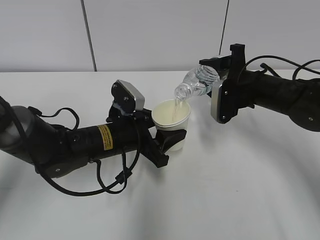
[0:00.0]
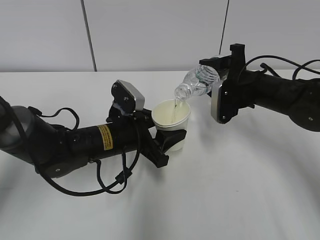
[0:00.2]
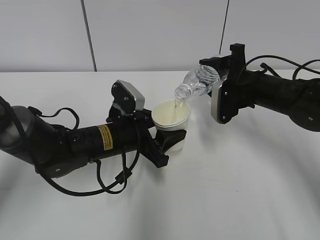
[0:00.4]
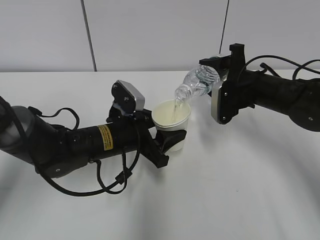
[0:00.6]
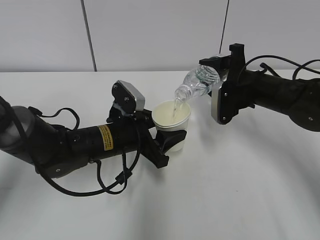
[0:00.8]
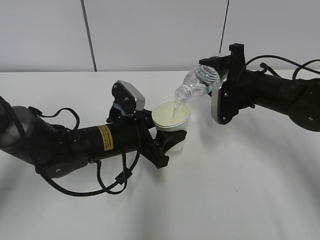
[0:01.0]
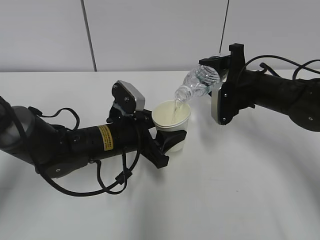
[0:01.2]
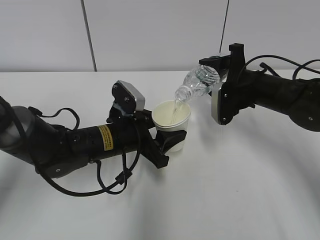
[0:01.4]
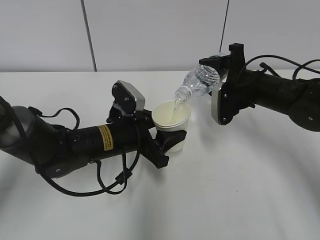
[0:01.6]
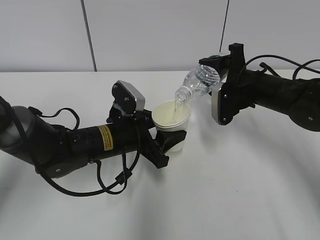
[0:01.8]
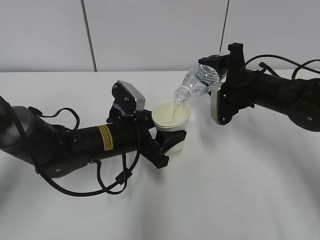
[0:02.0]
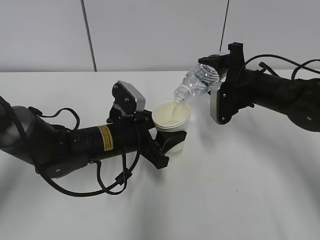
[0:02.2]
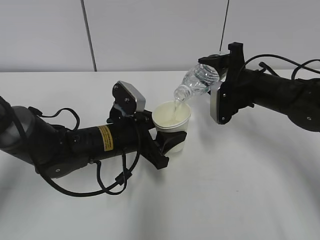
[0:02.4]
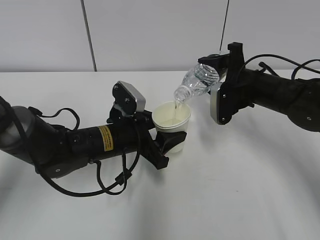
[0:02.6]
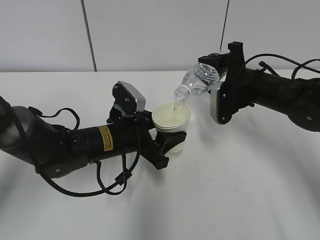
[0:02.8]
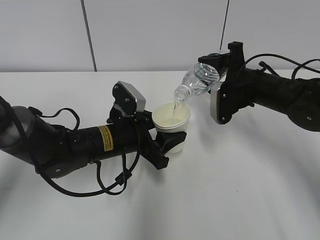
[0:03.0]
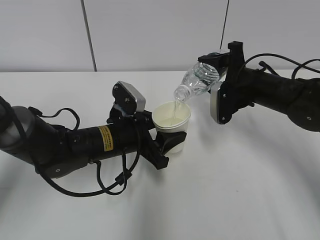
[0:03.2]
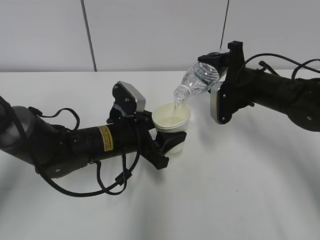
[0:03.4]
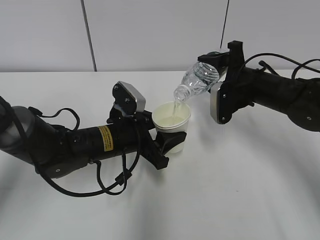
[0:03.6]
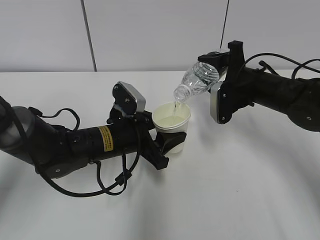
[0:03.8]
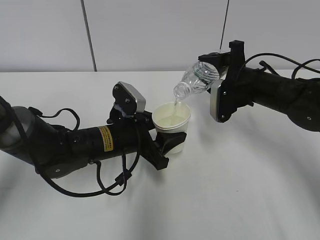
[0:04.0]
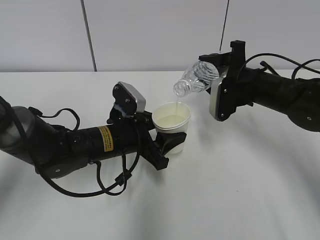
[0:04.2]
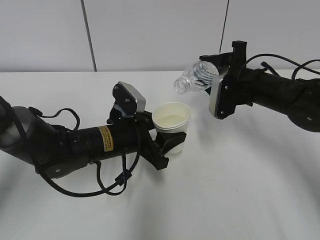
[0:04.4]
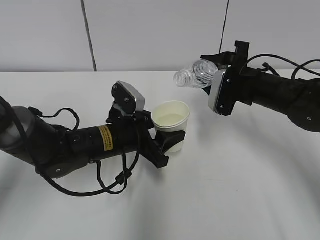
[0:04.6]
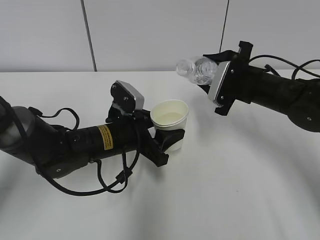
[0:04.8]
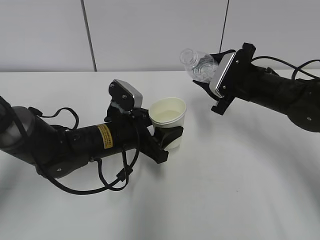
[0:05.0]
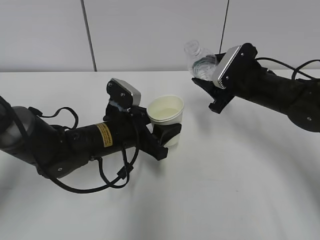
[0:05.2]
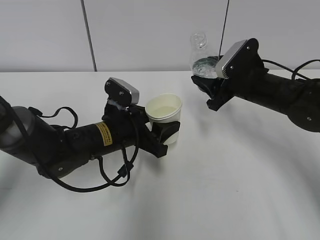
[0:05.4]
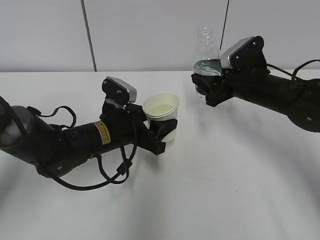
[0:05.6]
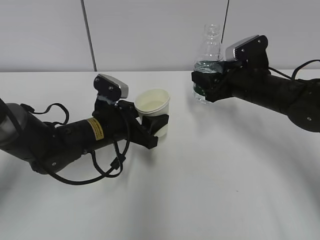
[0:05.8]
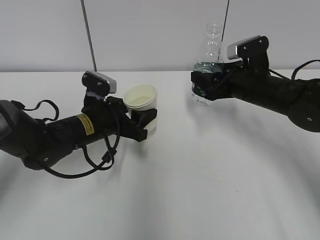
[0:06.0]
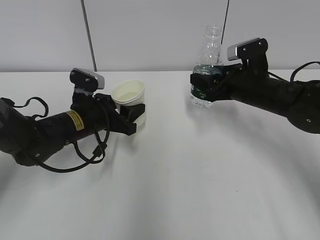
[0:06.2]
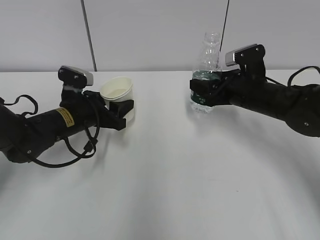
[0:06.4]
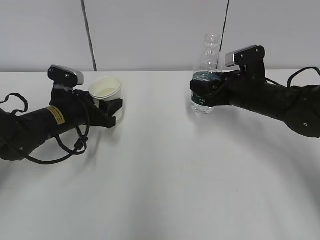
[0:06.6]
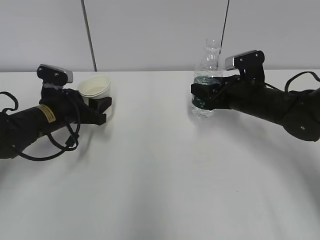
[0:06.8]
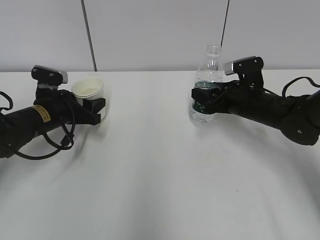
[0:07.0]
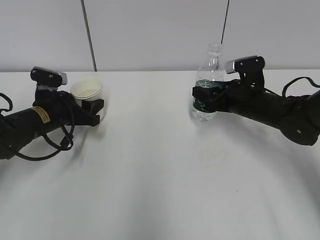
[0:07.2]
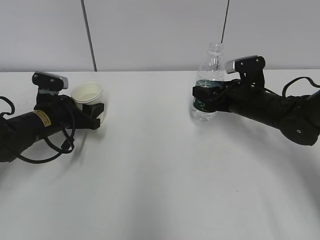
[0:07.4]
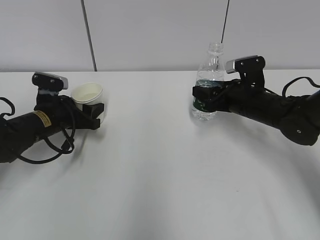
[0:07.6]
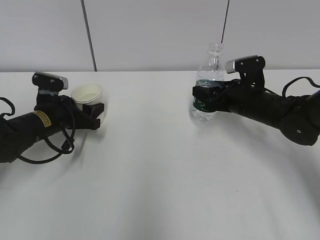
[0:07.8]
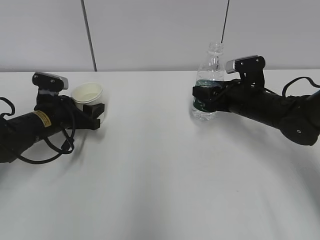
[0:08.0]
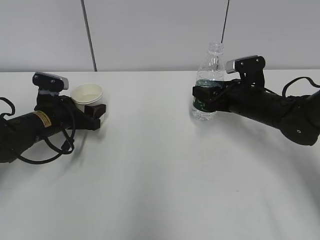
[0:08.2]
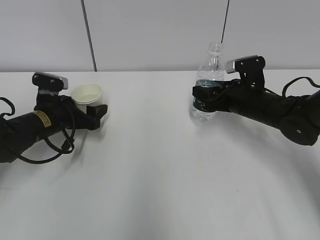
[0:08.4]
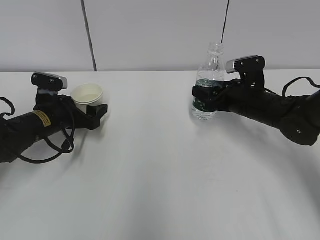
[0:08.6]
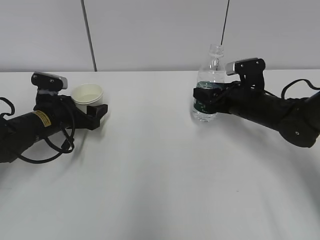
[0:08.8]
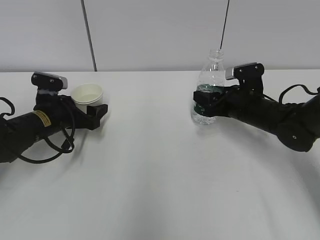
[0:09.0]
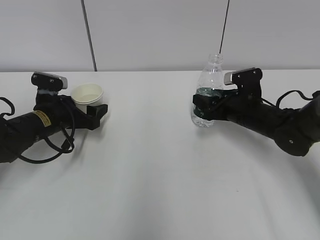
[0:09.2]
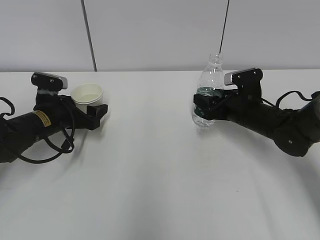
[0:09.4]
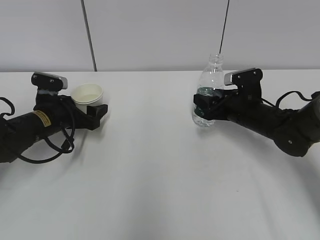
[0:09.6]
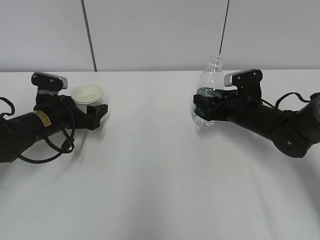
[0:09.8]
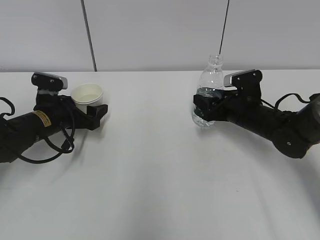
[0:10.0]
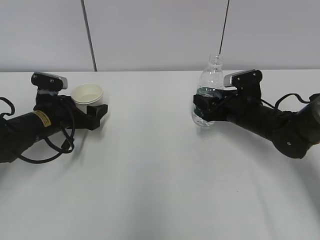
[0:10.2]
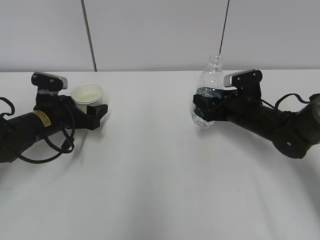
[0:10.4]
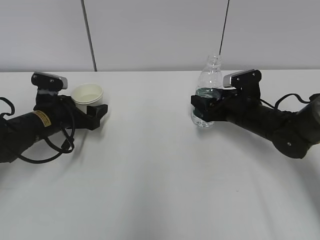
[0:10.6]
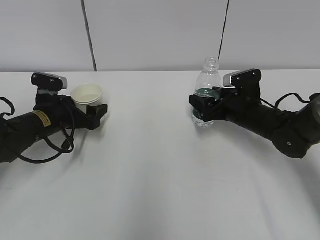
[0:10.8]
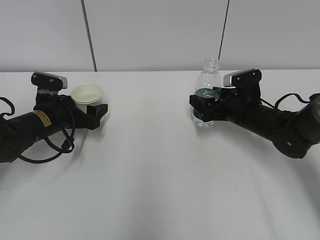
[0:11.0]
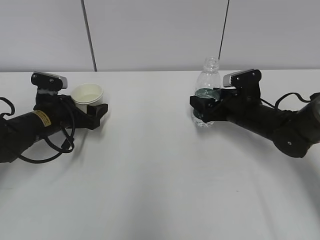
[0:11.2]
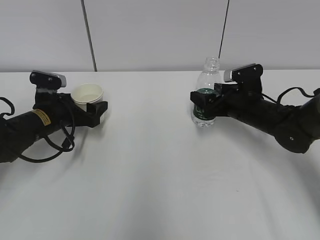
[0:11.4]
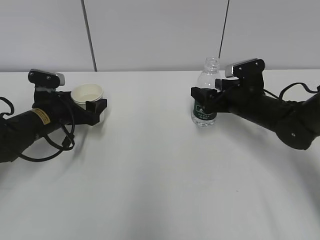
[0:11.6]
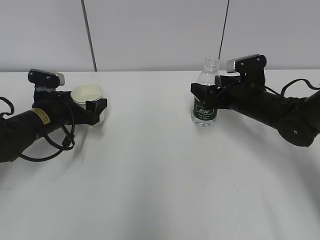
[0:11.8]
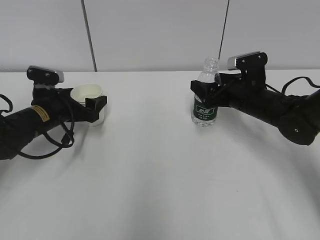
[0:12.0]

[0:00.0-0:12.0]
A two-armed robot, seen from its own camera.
Step, 0:03.8 to 0:05.6: Place the water bottle with the right hand.
0:00.0 to 0:01.6: The two grippers keep their place.
0:01.6 to 0:03.0: Neither gripper changes place.
0:03.0 to 0:04.4: The grippers stay close to where they were, moving slightly.
0:04.4 to 0:06.0: The left gripper changes place by about 5 cm.
0:06.0 to 0:07.6: The left gripper moves to the left, roughly 10 cm.
0:07.6 to 0:09.0: The left gripper opens up.
0:09.0 to 0:10.4: The grippers move only a little.
0:10.4 to 0:12.0: The right gripper opens up.

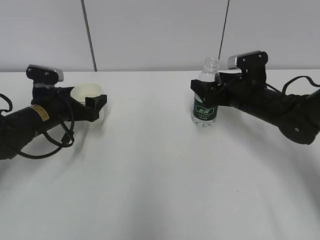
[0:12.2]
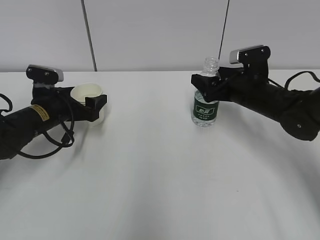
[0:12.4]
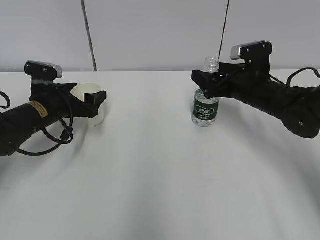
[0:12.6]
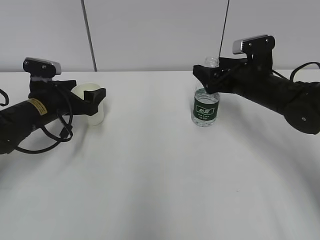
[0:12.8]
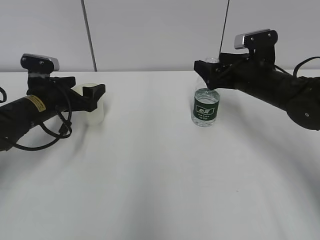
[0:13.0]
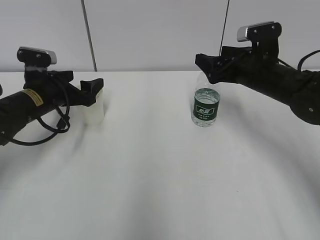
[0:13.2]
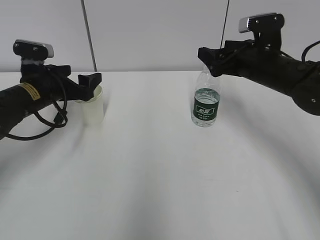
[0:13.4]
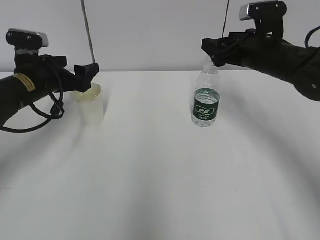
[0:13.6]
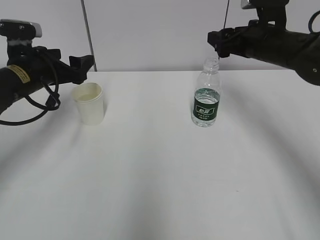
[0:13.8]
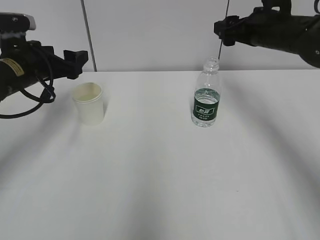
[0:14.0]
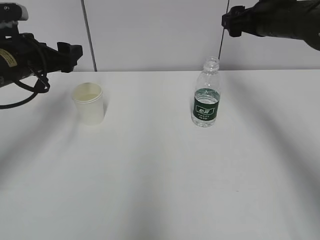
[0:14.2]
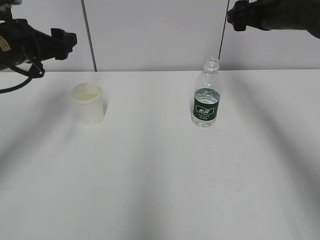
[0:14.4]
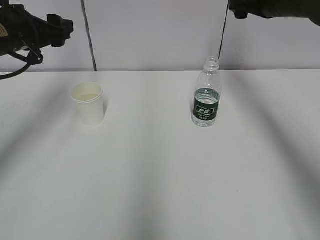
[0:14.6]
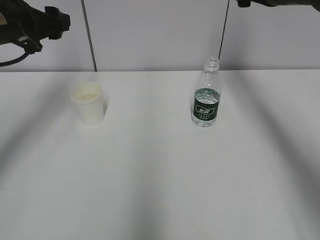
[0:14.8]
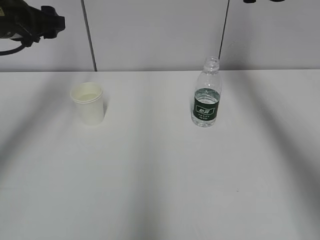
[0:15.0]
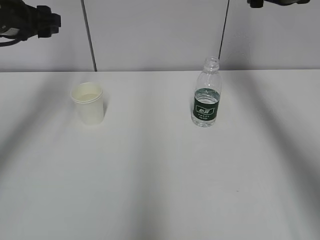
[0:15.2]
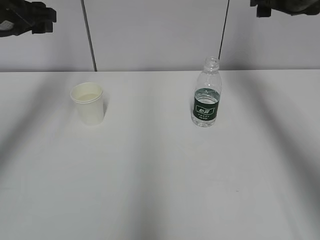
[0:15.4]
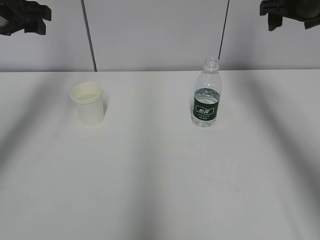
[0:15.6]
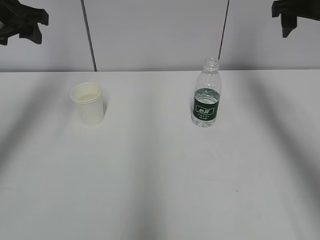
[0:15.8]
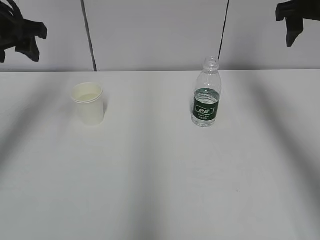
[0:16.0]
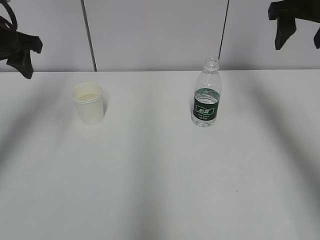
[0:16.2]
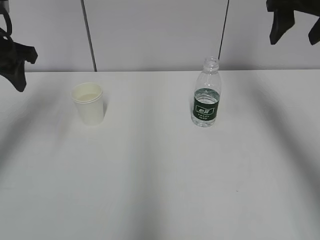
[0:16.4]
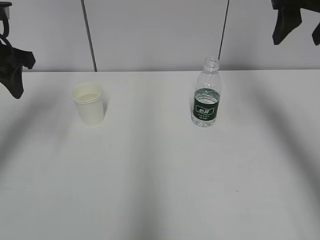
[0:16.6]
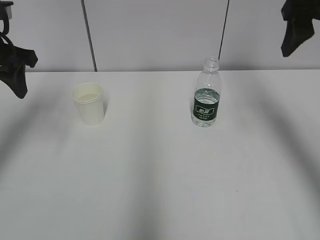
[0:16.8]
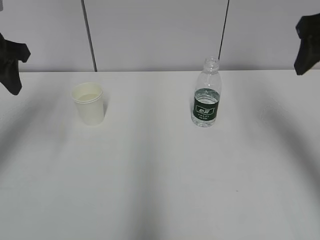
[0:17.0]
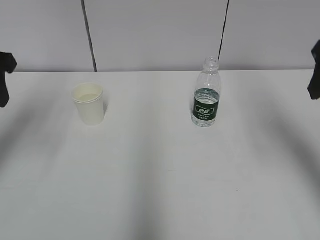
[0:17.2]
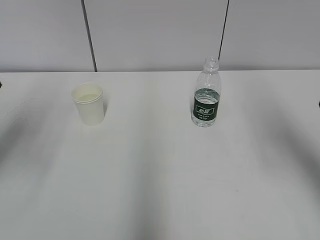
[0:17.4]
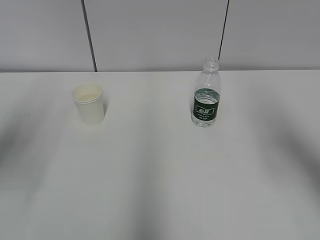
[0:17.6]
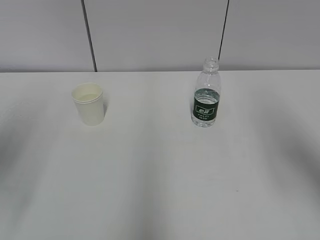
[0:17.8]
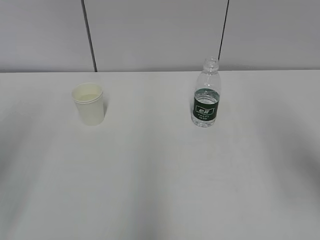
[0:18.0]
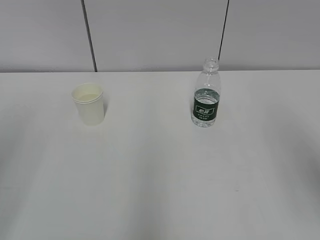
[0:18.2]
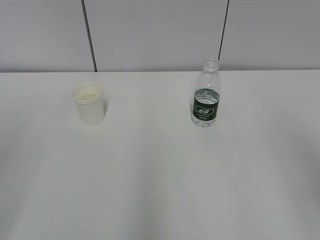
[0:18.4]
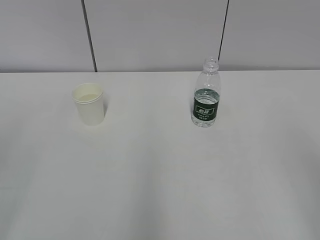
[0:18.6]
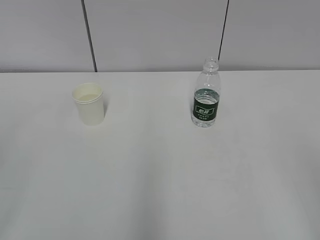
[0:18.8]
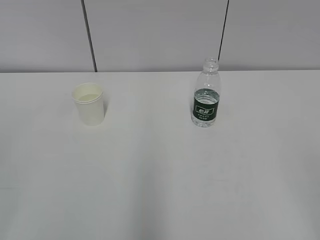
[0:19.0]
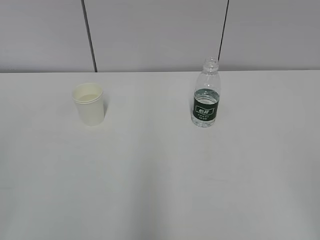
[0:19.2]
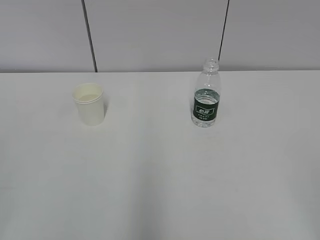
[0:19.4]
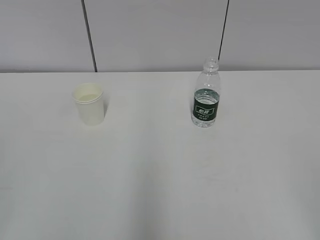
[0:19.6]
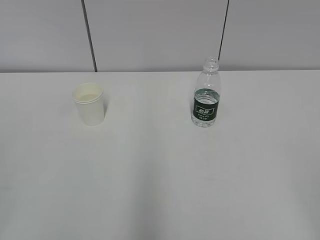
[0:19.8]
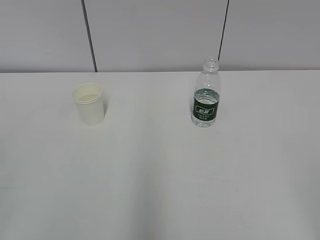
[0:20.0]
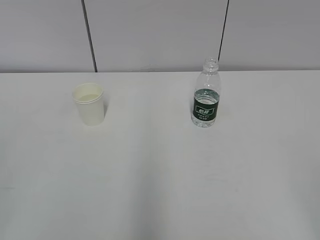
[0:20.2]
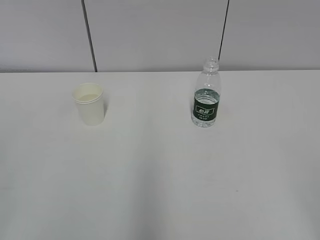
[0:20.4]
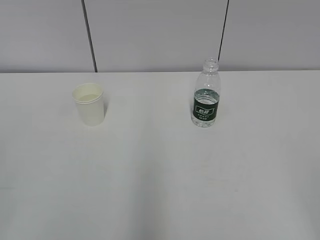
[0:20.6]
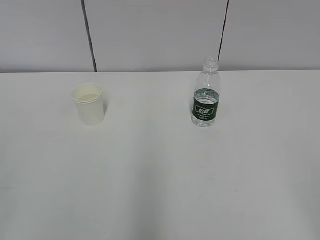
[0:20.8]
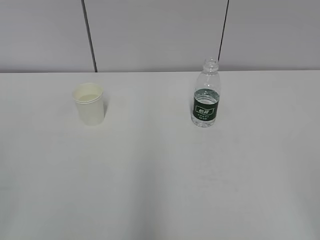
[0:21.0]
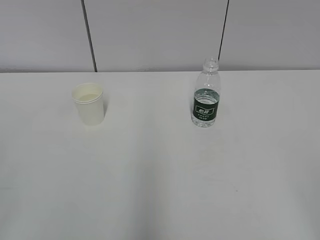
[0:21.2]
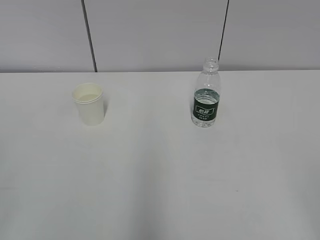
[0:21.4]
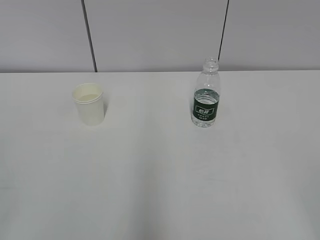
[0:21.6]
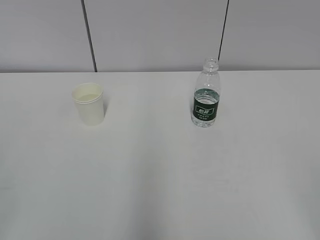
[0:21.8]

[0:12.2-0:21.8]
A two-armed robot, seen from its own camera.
0:12.2 to 0:13.8: Both grippers move upward, about 10 cm.
0:13.8 to 0:15.4: The grippers both shift upward by some 10 cm.
0:15.4 to 0:17.0: The left gripper shifts about 5 cm backward. The right gripper shifts roughly 15 cm backward.
0:17.0 to 0:18.6: The two grippers go some 25 cm backward.
0:20.2 to 0:21.8: The two grippers keep their place.
